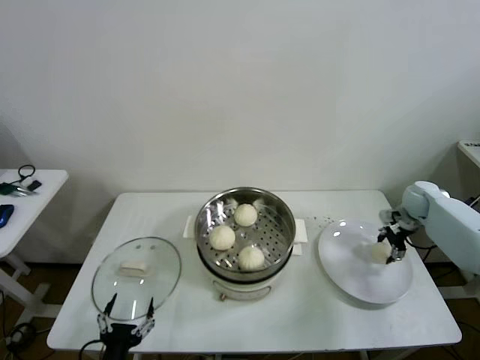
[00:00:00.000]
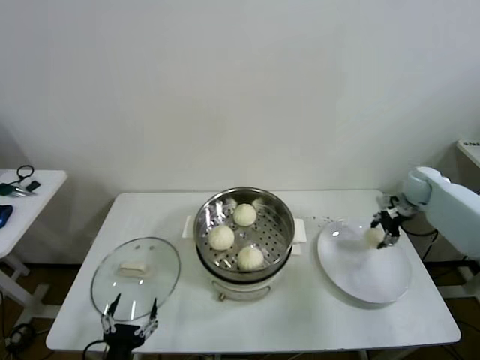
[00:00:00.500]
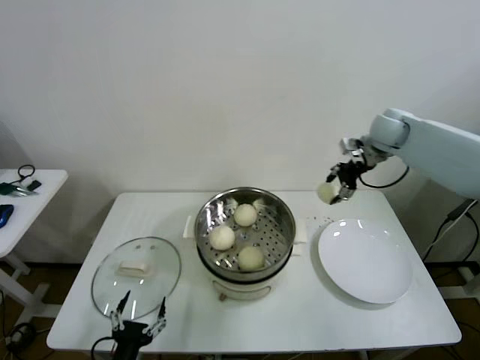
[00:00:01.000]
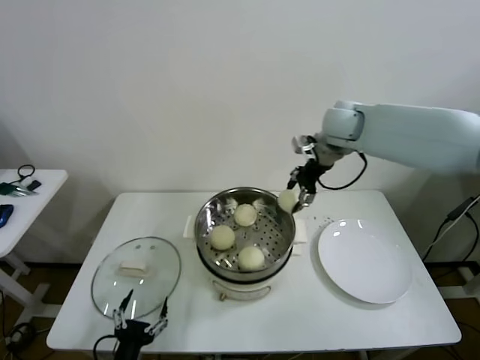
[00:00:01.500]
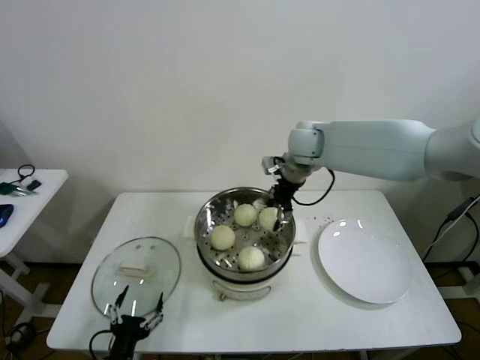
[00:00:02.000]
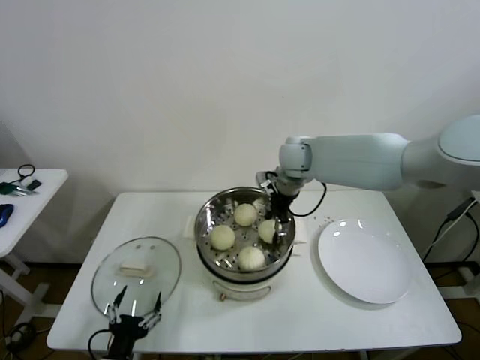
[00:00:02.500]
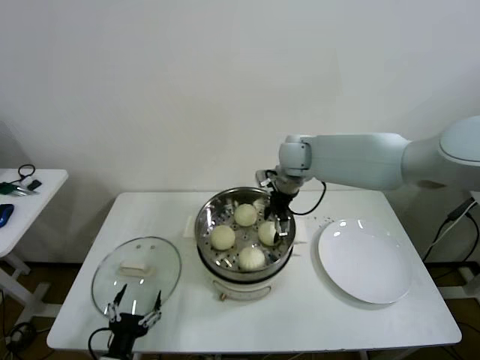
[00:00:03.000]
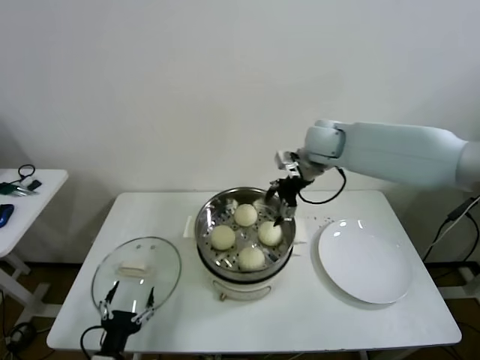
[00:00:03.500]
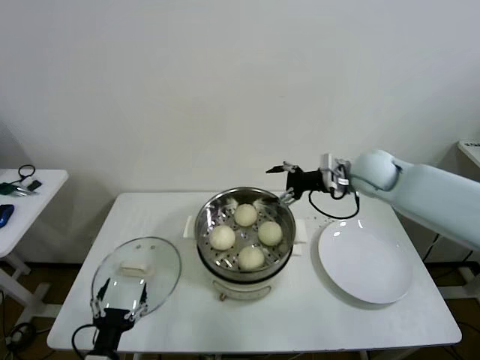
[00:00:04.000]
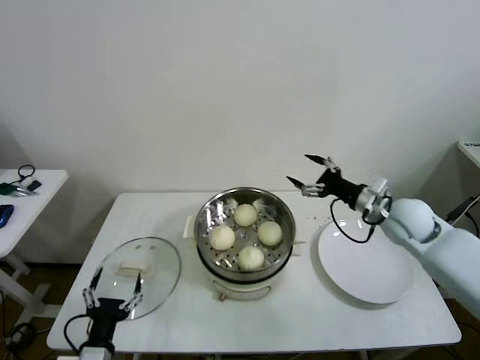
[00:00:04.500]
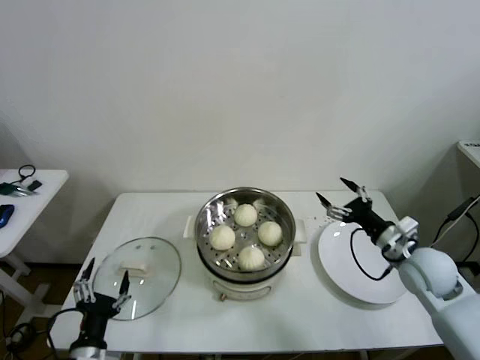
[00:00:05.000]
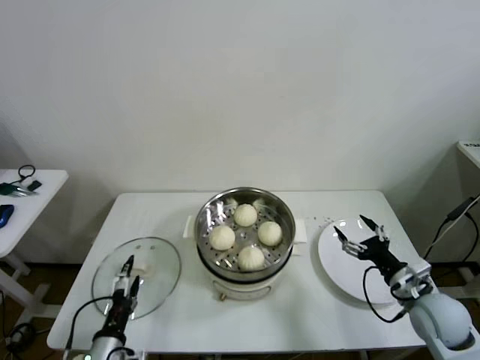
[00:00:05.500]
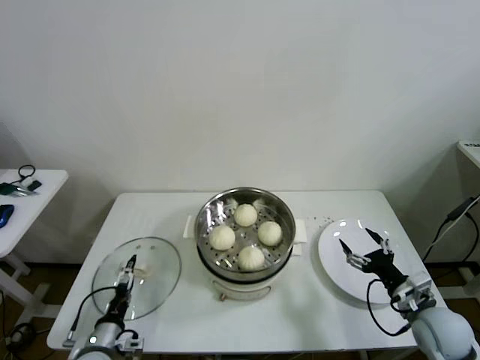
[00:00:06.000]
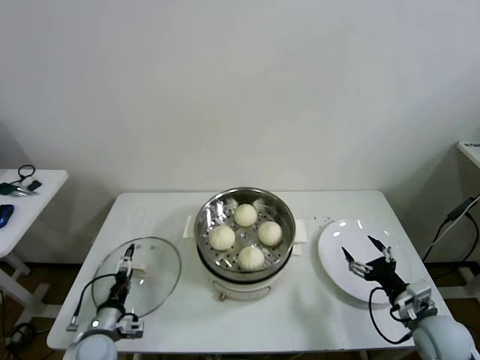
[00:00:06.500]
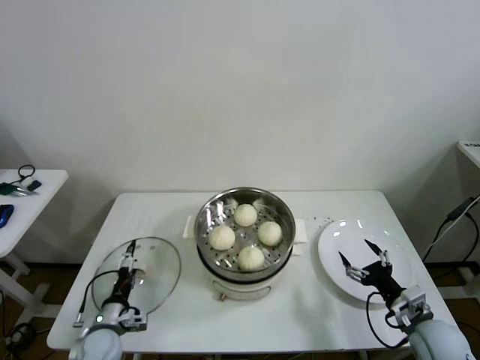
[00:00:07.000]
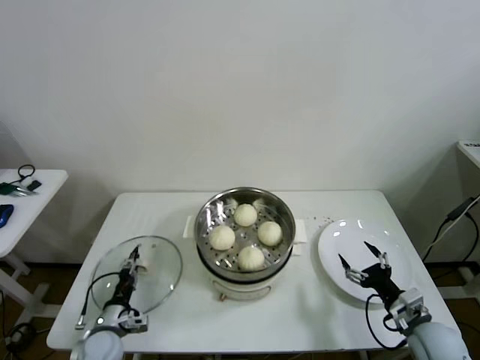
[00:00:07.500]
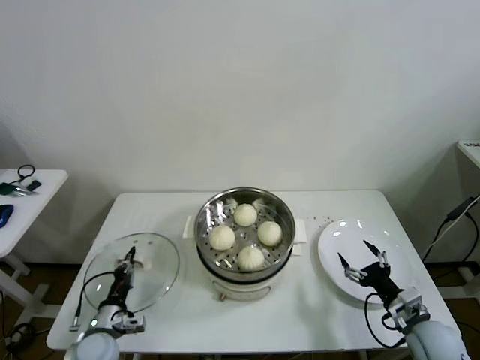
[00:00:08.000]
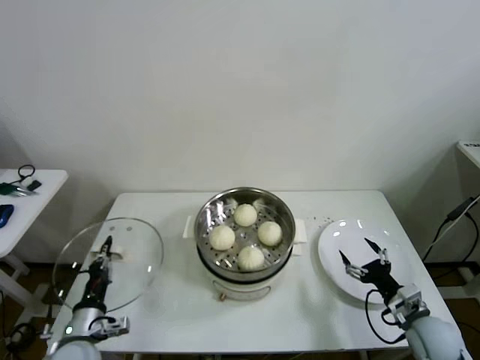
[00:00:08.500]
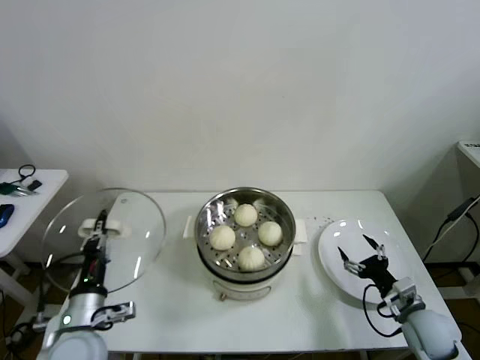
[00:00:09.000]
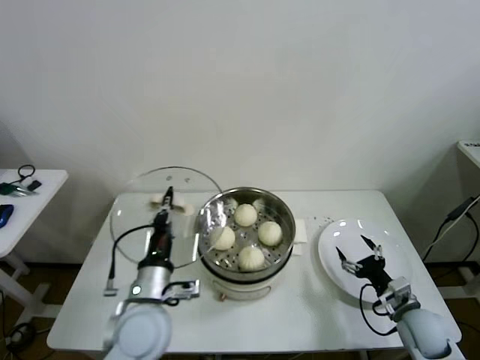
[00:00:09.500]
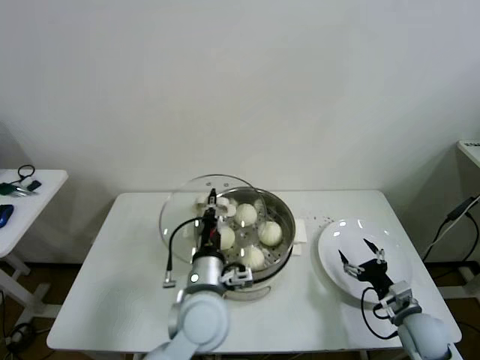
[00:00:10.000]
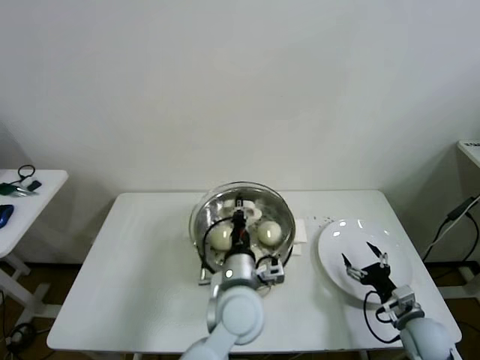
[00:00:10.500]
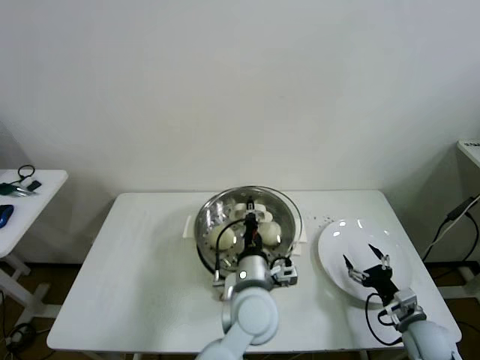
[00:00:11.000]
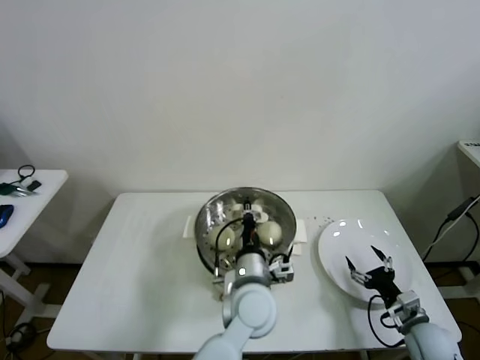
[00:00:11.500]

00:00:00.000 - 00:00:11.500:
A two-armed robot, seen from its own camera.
Task of the whole recording: take steamed baozi put them in steamer then cover it.
Step, 00:00:00.500 - 00:00:02.500: Place the baozi on the steamer with right gripper.
Step, 00:00:03.000 - 00:00:07.500: Grasp the pot lid with left gripper.
00:00:00.000 - 00:00:02.000: The right gripper moves to the left and upward, approximately 40 cm.
00:00:02.000 - 00:00:04.000: The right gripper shifts about 15 cm to the right and backward, and opens.
00:00:04.000 - 00:00:06.000: The right gripper goes about 35 cm backward, downward and to the right. Meanwhile the left gripper travels forward by about 5 cm.
00:00:06.000 - 00:00:07.500: The left gripper is displaced forward by roughly 5 cm, and closes up.
00:00:07.500 - 00:00:09.500: The left gripper heads upward and to the right, covering about 25 cm, and closes its fingers.
00:00:09.500 - 00:00:11.500: The left gripper is displaced to the right by about 20 cm.

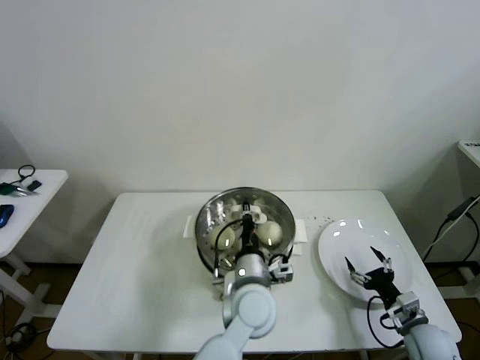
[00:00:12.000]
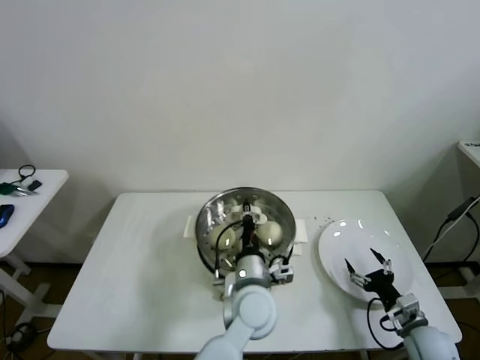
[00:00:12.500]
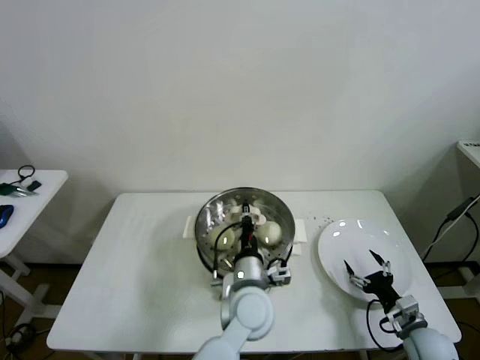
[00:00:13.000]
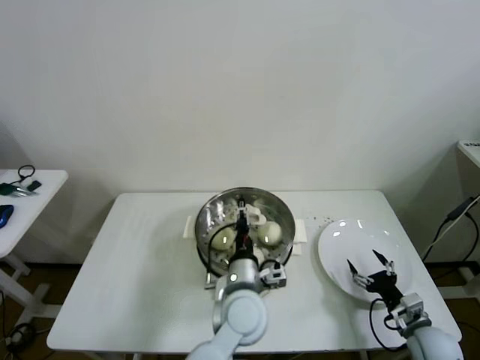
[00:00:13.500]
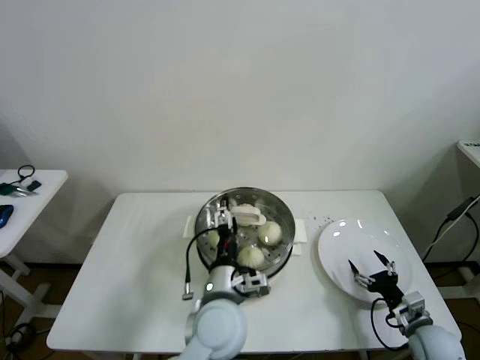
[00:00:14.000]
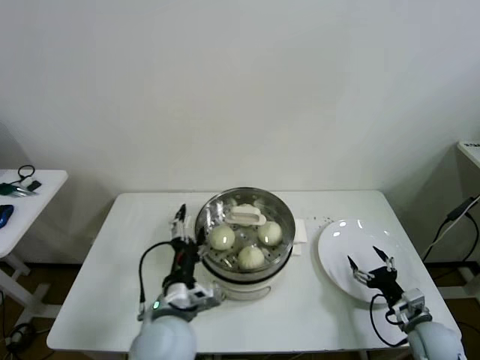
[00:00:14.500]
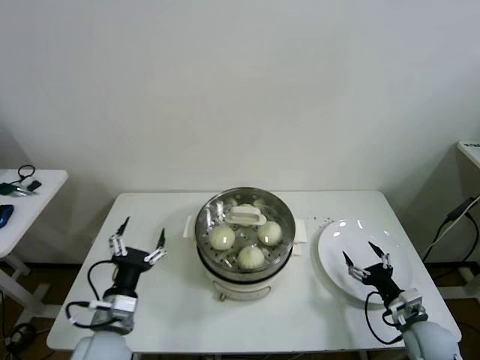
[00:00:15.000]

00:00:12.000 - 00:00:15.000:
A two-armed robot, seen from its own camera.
Task of the whole recording: take steamed baozi put them in steamer then cover it.
00:00:12.000 - 00:00:13.500: The left gripper opens.
00:00:13.500 - 00:00:15.000: The left gripper is displaced to the left by about 25 cm, and opens its fingers.
